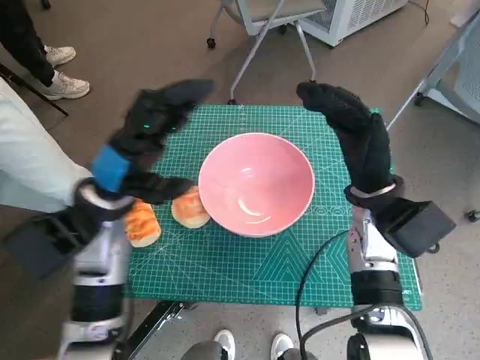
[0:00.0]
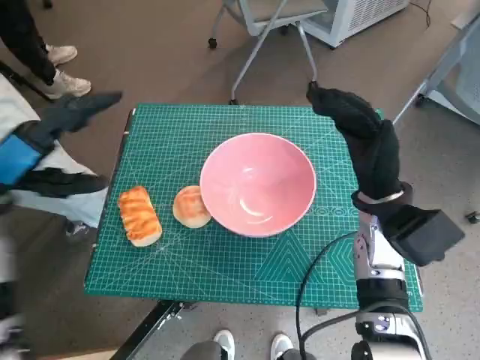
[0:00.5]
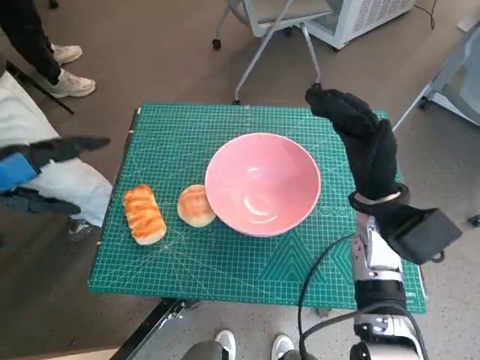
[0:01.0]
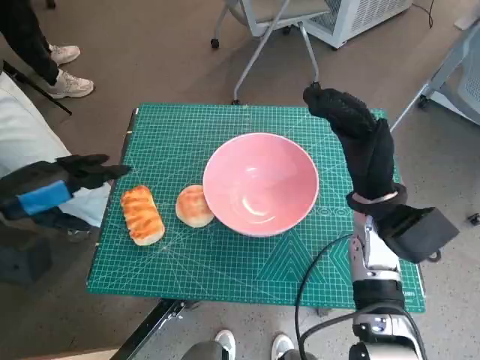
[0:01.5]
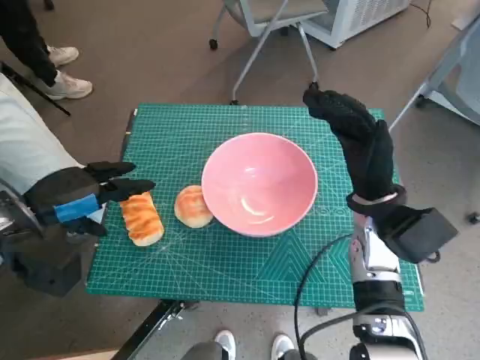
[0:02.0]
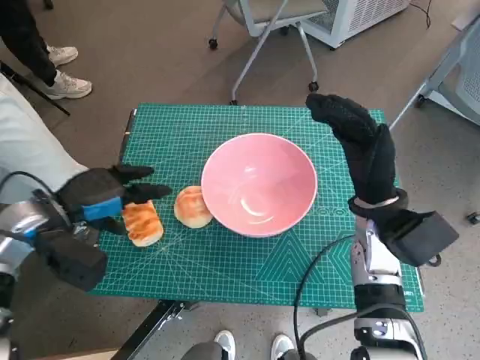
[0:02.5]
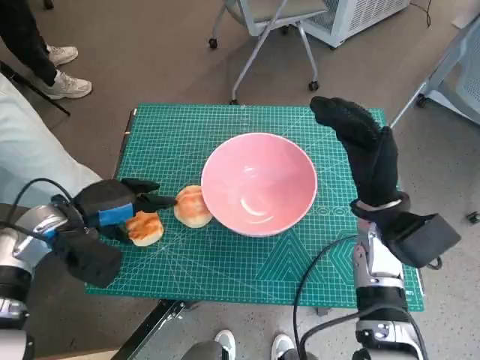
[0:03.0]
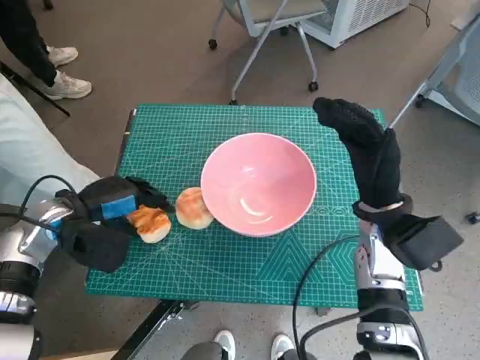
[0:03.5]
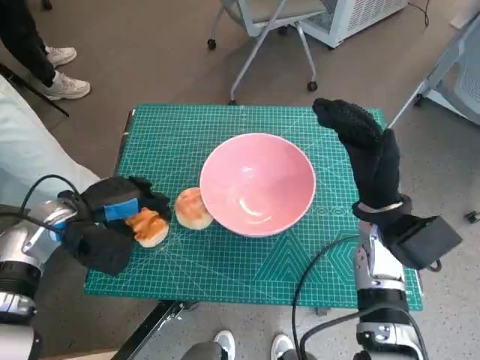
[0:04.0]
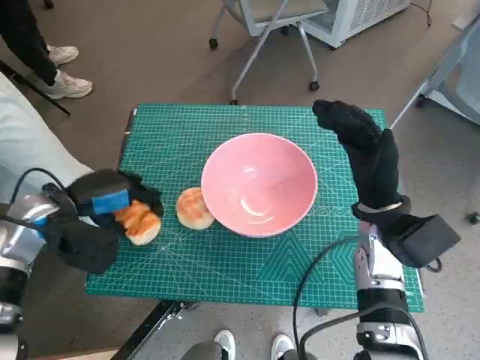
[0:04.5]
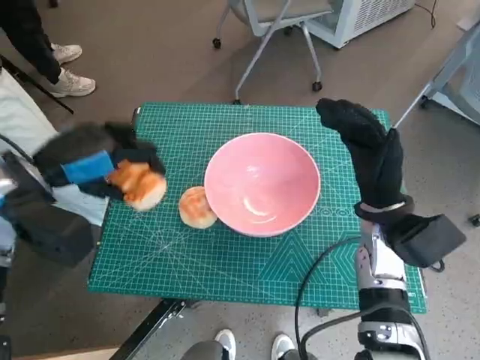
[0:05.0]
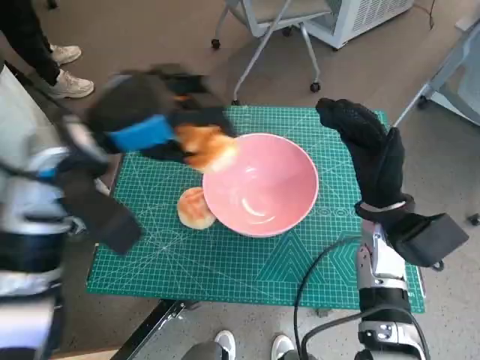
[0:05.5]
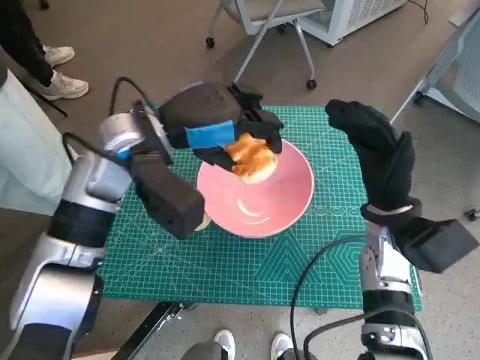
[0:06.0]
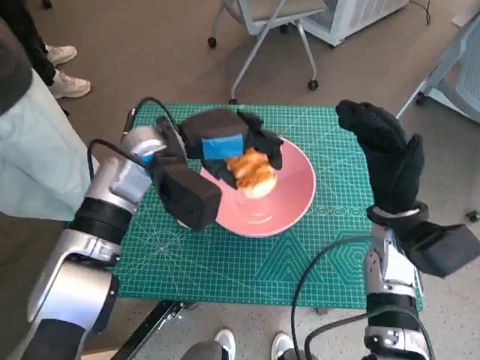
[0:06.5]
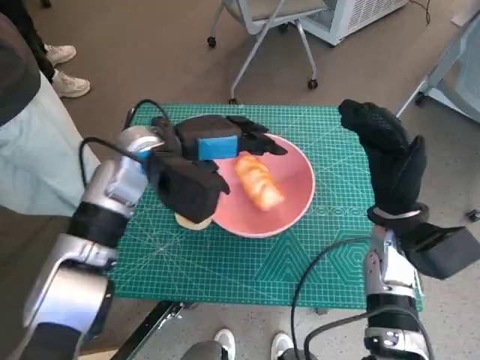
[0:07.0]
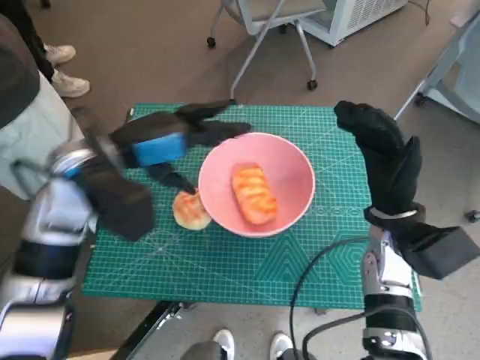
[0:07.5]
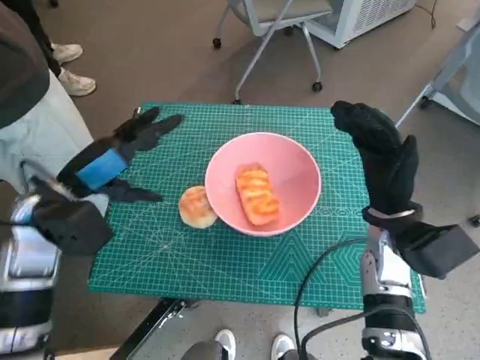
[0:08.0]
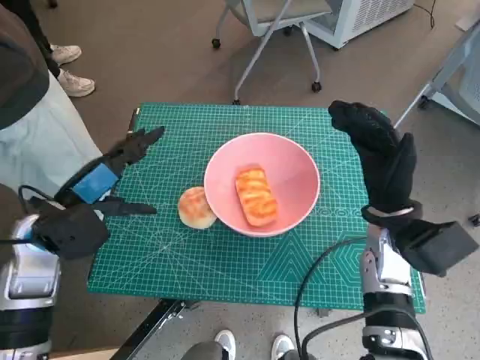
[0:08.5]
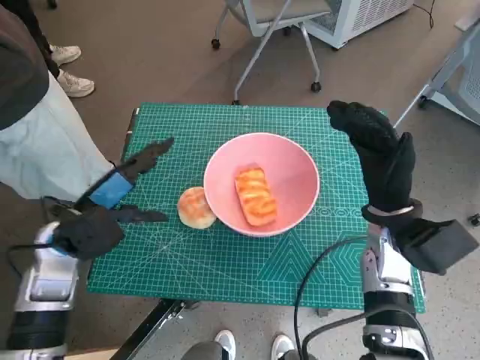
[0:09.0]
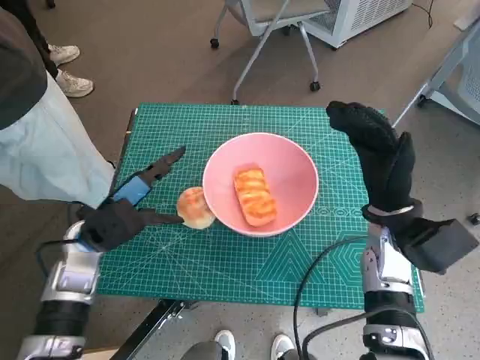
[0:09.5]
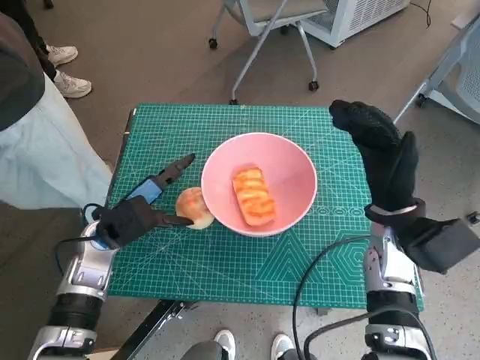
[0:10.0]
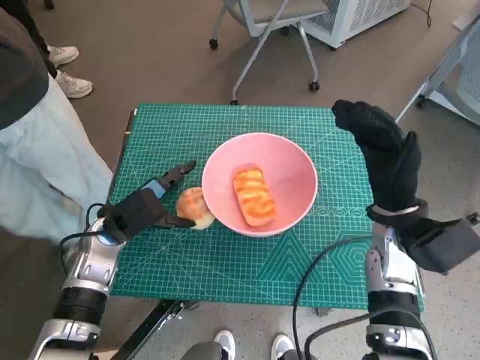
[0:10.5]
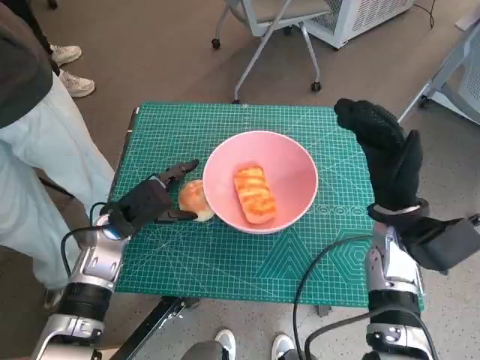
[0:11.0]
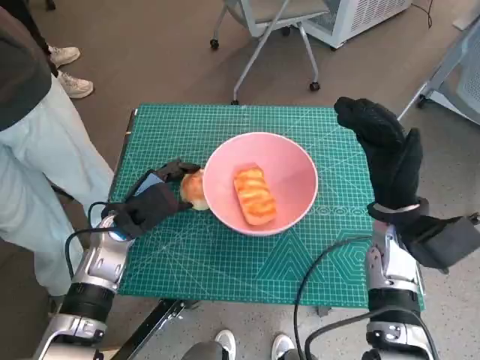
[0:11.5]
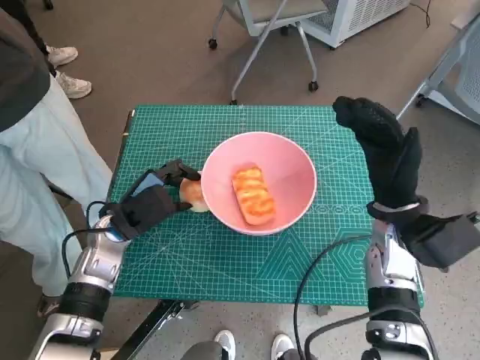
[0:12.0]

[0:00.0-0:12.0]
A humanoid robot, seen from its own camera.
Task of the whole recording: Push the bowl into the center of the table and put the bread into the bowl.
Step, 0:00.0 to 0:03.5: Grasp the long bread with left hand.
Step, 0:04.0 to 0:08.0: Place the long bread in pink bowl with left hand.
0:00.0 to 0:02.0: The left hand travels to the left by about 10 cm.
0:02.0 to 0:04.0: The left hand moves downward, roughly 5 cm.
0:04.0 to 0:06.0: The left hand is displaced to the right and upward by approximately 20 cm.
0:06.0 to 0:08.0: The left hand travels to the left, backward and downward by roughly 15 cm.
0:08.0 to 0:10.0: The left hand heads downward, covering approximately 10 cm.
0:10.0 to 0:12.0: There are only small adjustments of the hands.

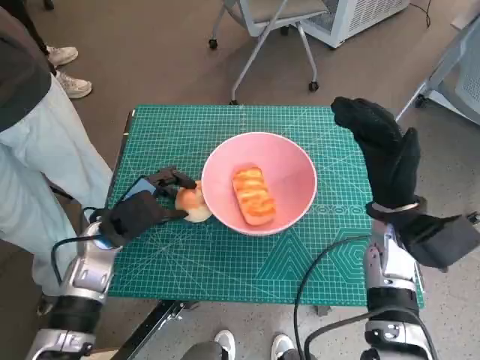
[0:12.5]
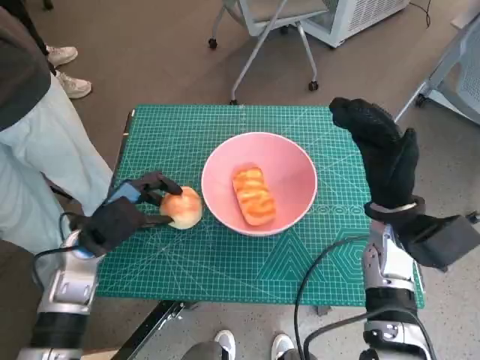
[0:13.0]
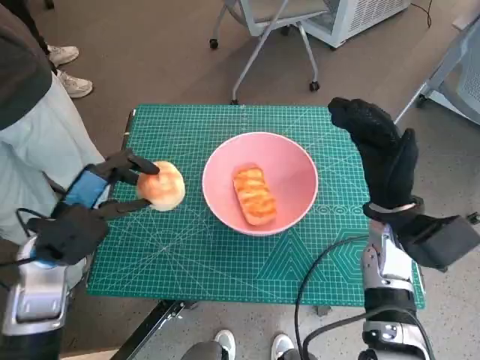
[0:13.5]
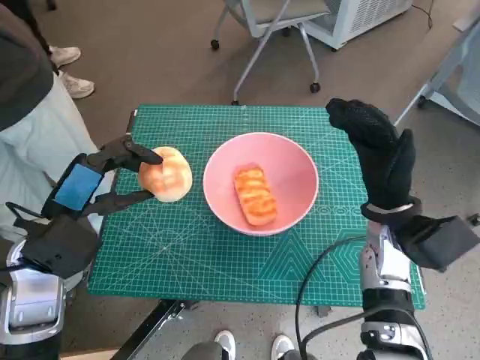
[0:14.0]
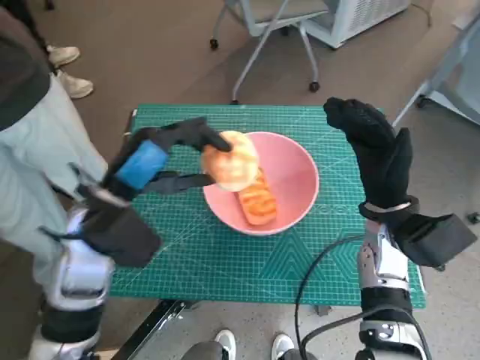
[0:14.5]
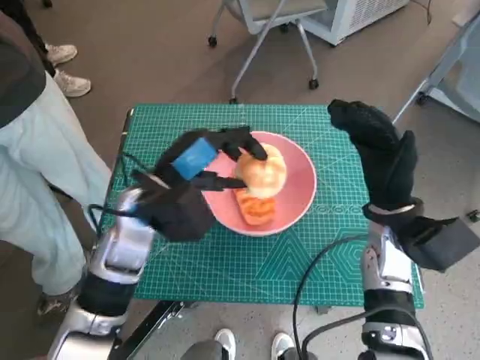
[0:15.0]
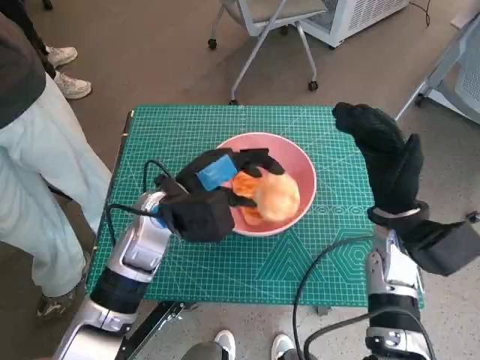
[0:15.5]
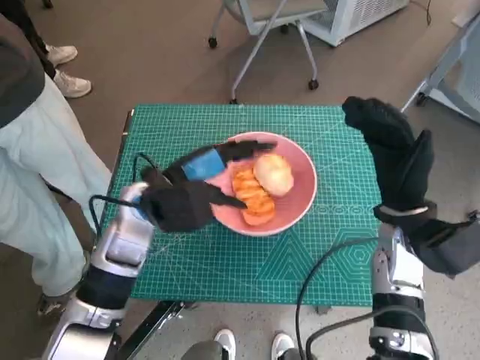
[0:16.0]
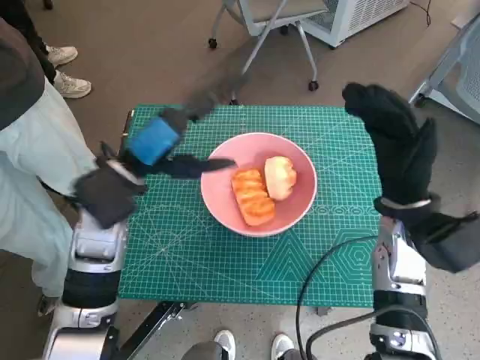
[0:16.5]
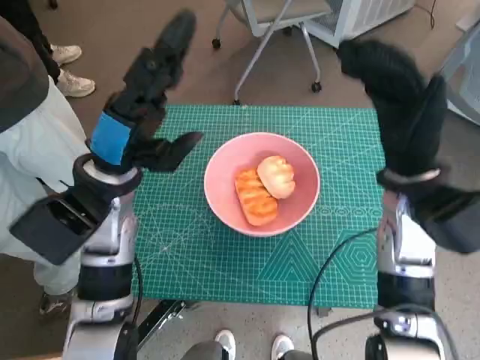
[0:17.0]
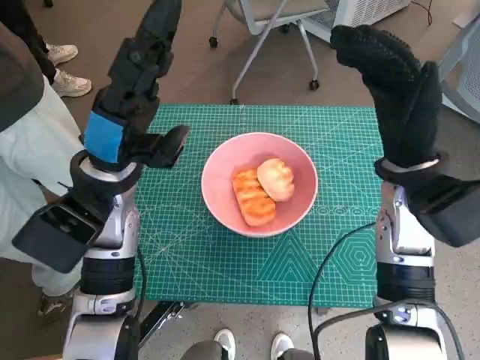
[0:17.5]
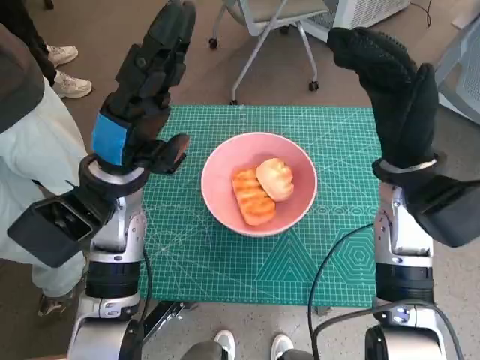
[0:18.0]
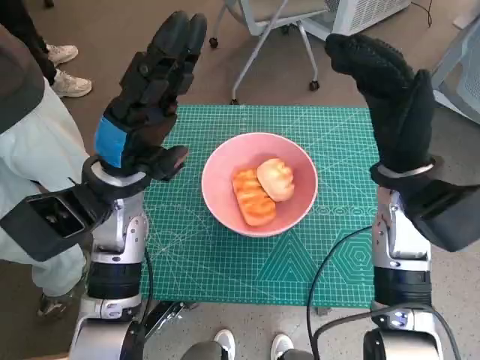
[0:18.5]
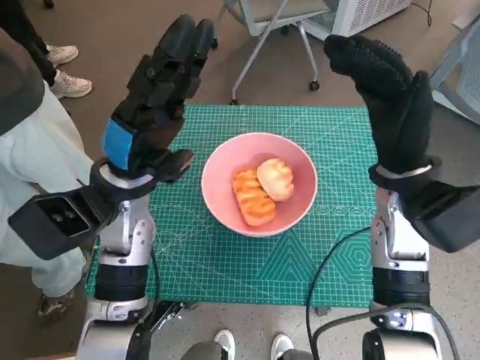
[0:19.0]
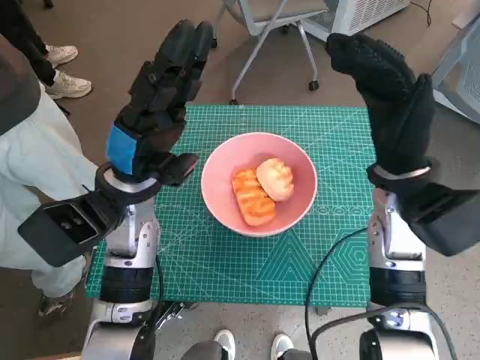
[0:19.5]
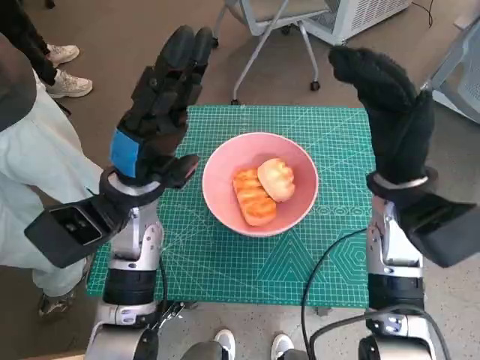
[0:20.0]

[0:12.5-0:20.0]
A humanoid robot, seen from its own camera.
Task of the whole recording: Push the bowl into the center of the table and put the bread into the bowl.
Step, 0:12.5 to 0:15.0: Place the round bread in pink bowl with left hand.
0:12.5 to 0:14.5: The left hand shifts about 10 cm upward and to the right.
0:16.5 to 0:18.0: The right hand goes roughly 5 cm upward.

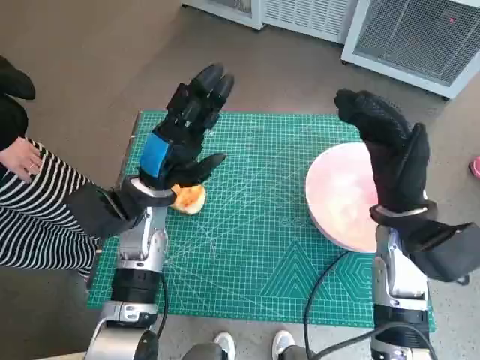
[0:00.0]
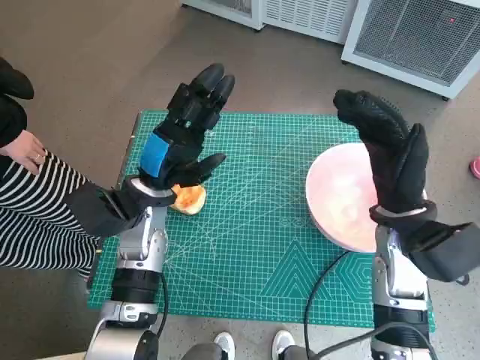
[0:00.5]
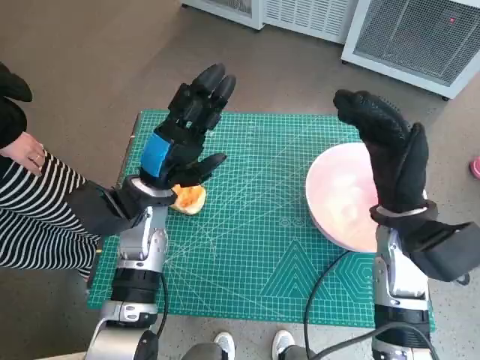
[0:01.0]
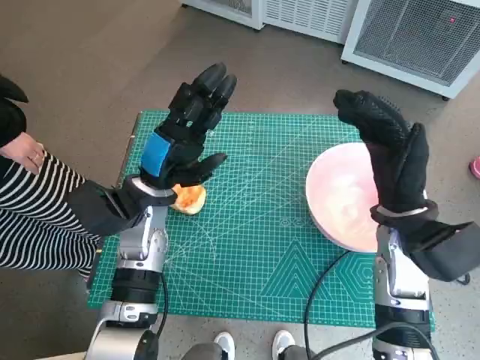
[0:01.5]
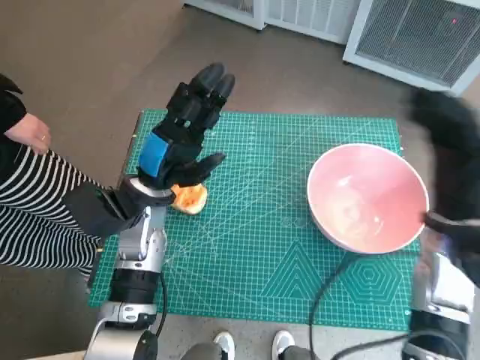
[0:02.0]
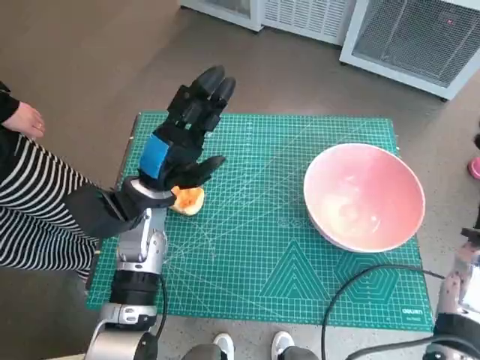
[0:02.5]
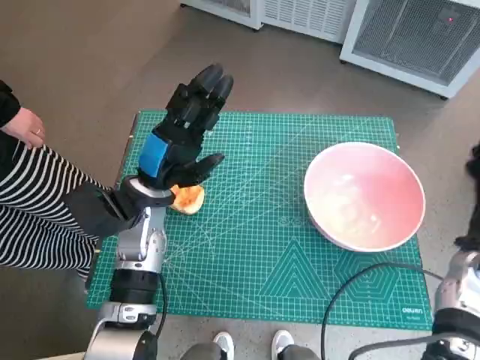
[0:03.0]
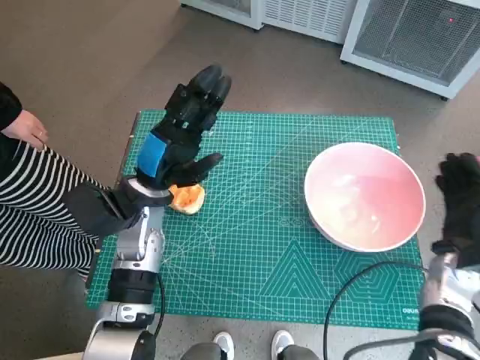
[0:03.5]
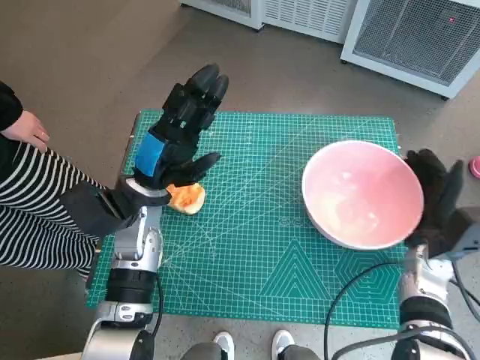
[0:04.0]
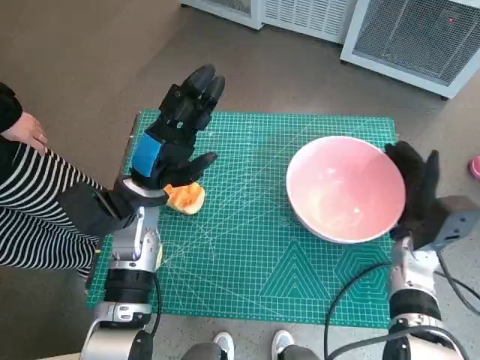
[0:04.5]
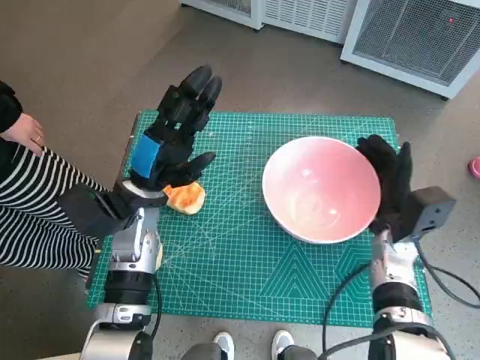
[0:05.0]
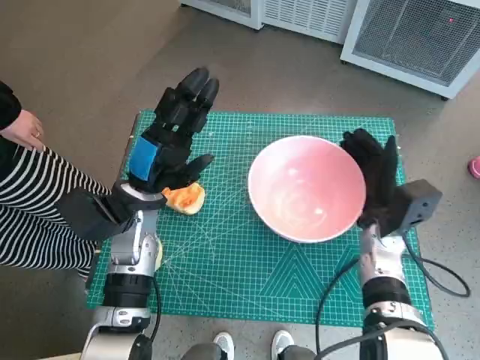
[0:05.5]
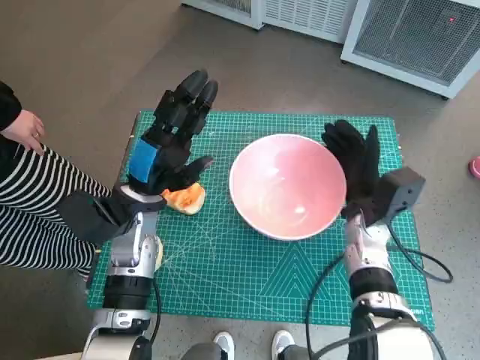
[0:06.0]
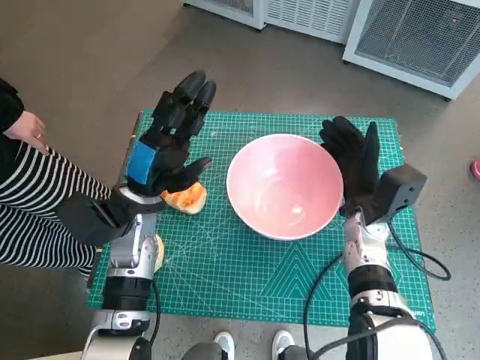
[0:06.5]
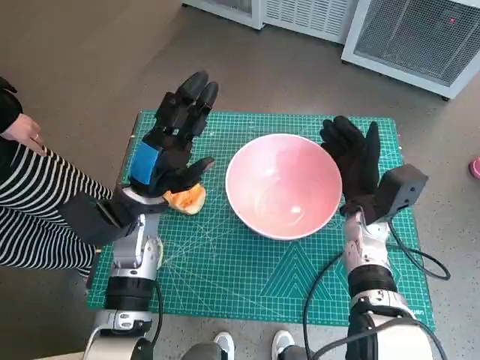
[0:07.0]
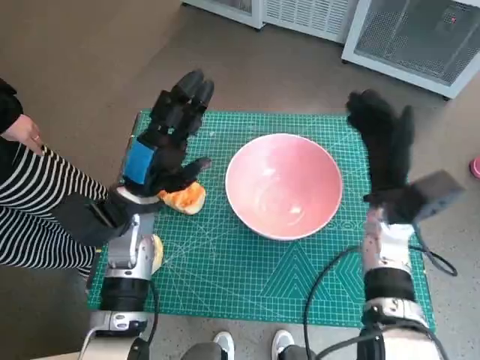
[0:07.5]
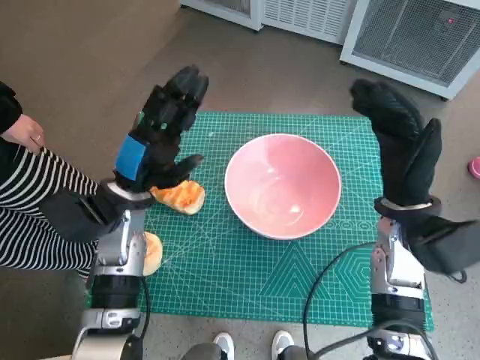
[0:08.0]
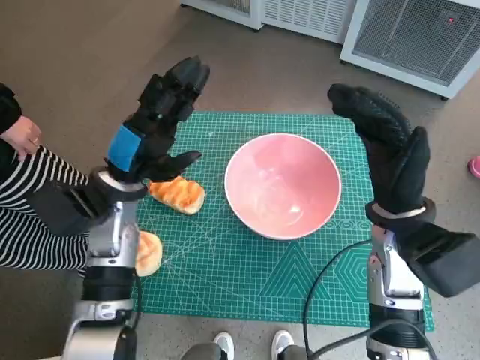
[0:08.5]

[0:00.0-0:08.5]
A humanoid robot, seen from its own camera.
Task of the whole recording: Push the bowl into the center of the table and put the bread into the bowl.
Step, 0:00.0 to 0:07.0: Move the pink bowl to the center of table with right hand.
0:02.0 to 0:04.0: The right hand heads downward, covering approximately 10 cm.
0:04.0 to 0:06.5: The right hand is displaced to the left by some 10 cm.
0:06.5 to 0:08.5: The right hand is displaced upward by approximately 10 cm.
